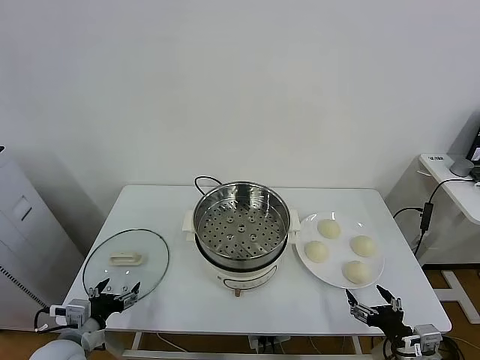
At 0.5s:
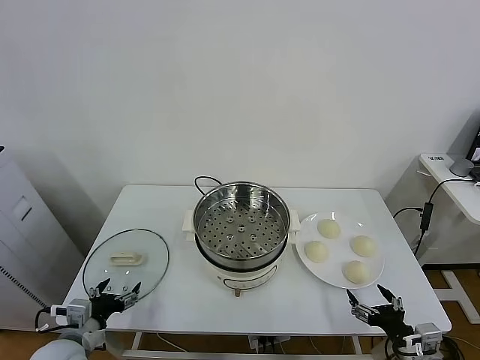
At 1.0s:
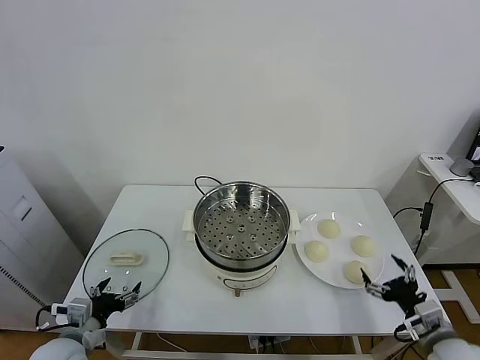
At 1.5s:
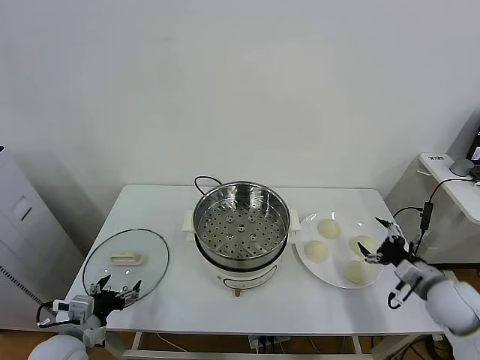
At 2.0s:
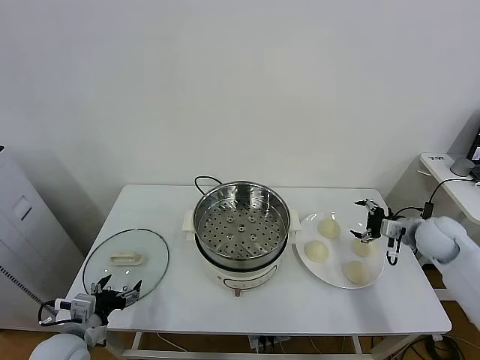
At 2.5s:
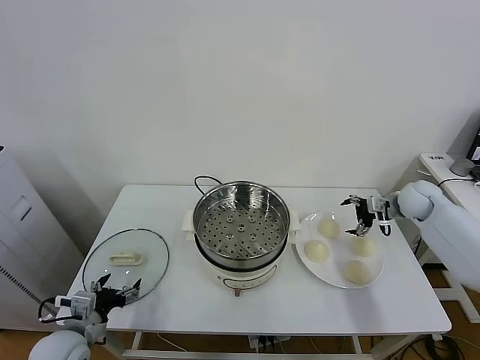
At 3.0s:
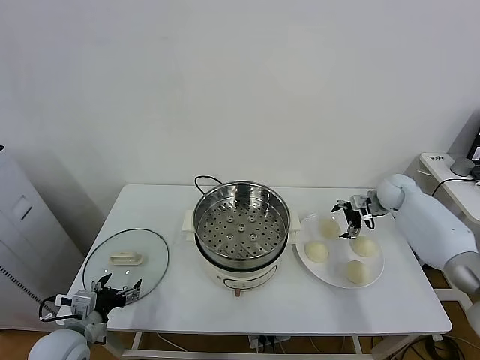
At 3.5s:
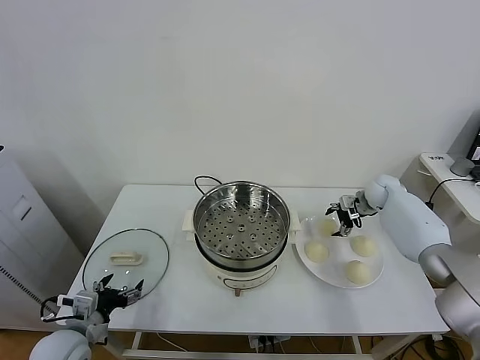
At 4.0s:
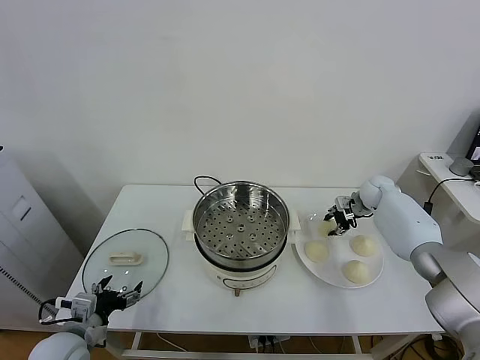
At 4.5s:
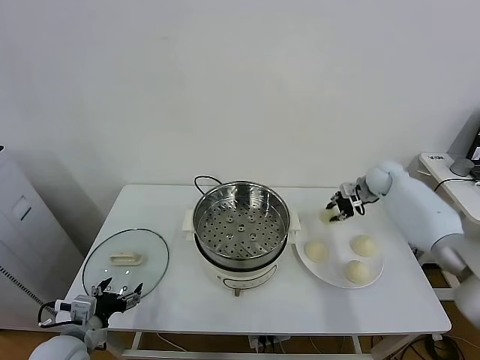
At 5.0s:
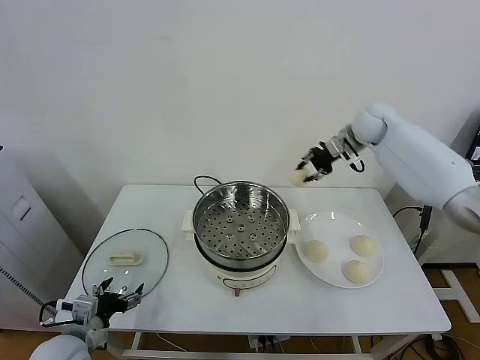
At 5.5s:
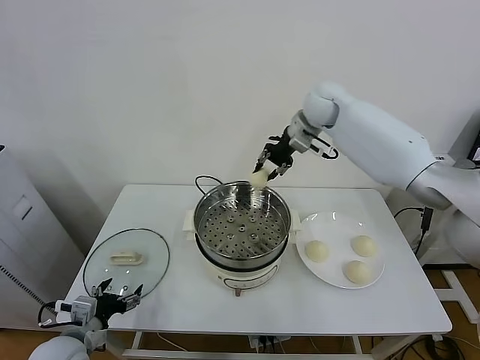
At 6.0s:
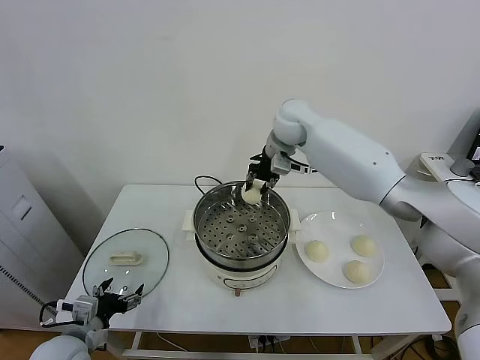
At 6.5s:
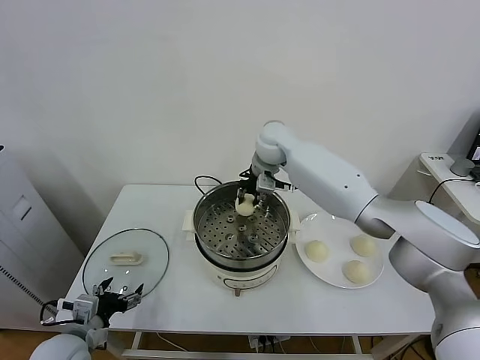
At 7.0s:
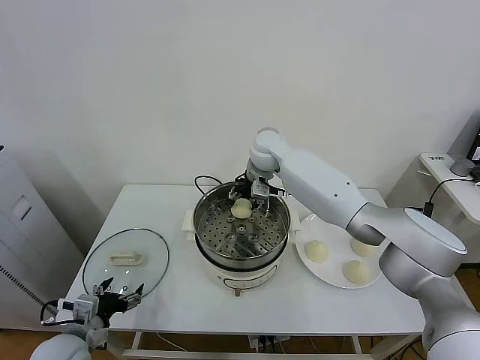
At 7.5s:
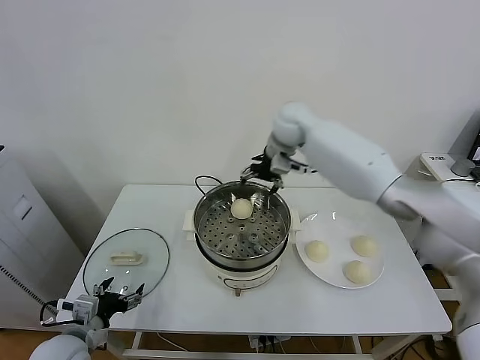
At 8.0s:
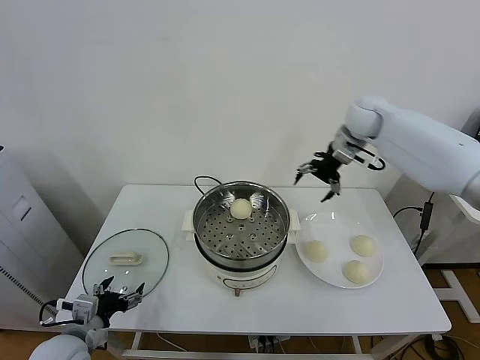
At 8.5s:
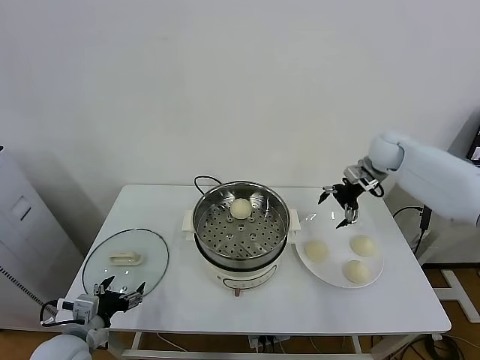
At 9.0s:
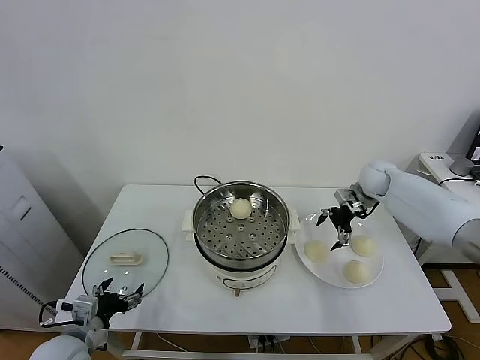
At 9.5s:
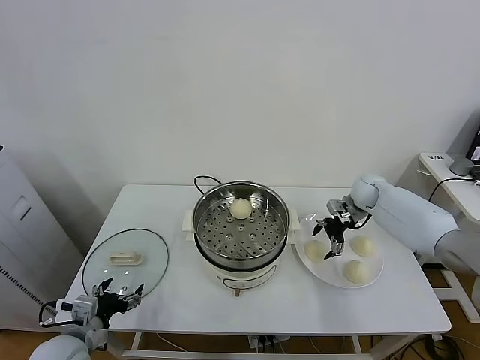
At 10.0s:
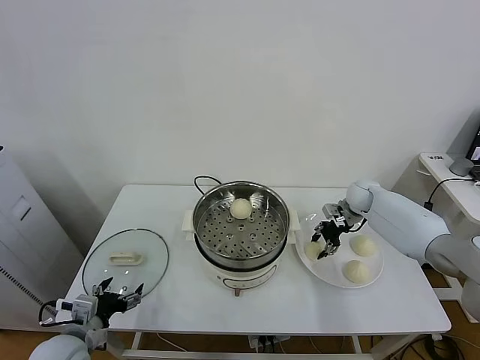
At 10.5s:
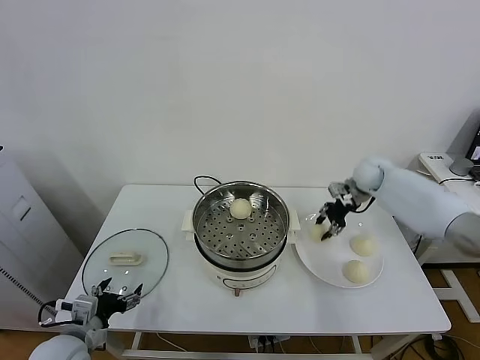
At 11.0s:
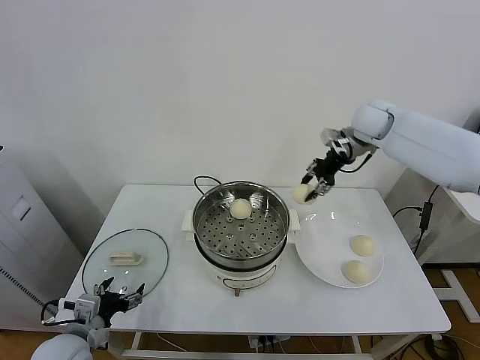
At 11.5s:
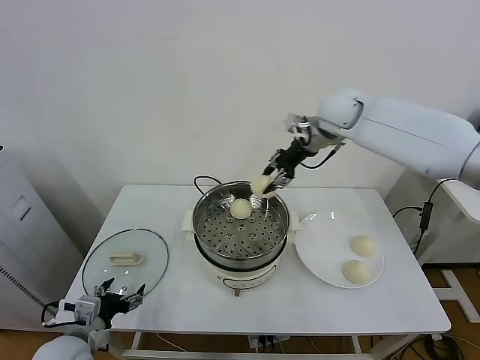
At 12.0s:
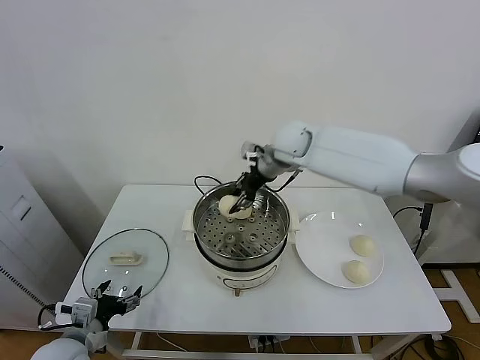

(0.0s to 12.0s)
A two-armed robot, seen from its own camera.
Task of the whole recording: take steamed baozi put them in steamer.
Step, 0.0s - 3.5s: Grasp the baozi in the plate with right gripper.
Step, 4.0s - 7.0s: Place the baozi on the steamer with right gripper.
Step, 7.5s - 10.0s: Grasp the baozi in the plate with right gripper.
2.0s - 4.0s: The right gripper goes about 15 cm forward, and closes its fingers.
4.0s - 6.0s: The right gripper goes approximately 35 cm to the left and upward.
6.0s - 8.0s: The right gripper moves to the right, about 20 cm, and opens.
8.0s - 10.0s: The right gripper moves downward, approximately 25 cm, and closes up.
10.0s - 12.0s: The right gripper moves to the left and upward, some 30 cm.

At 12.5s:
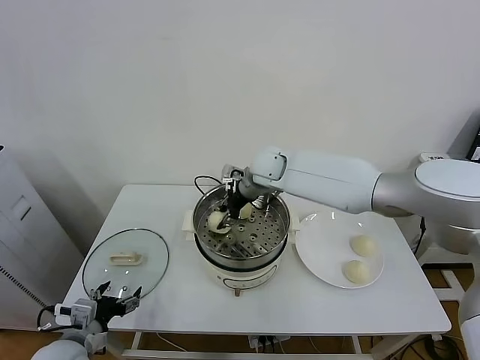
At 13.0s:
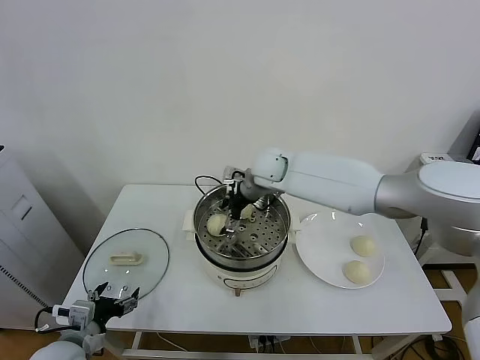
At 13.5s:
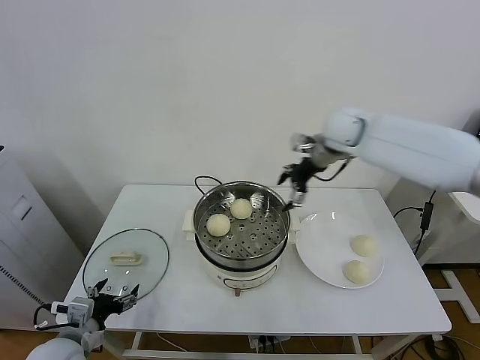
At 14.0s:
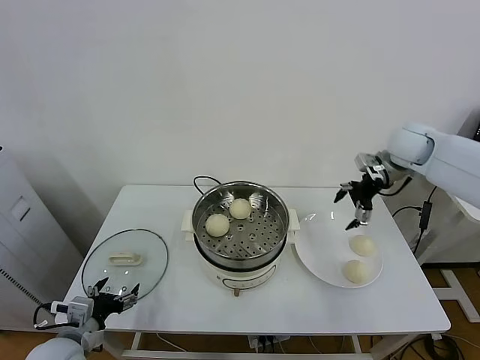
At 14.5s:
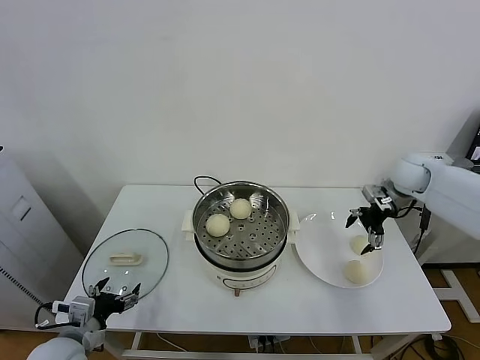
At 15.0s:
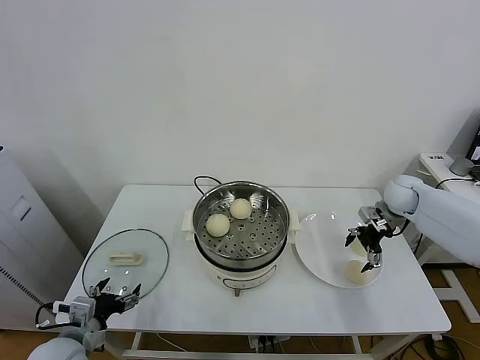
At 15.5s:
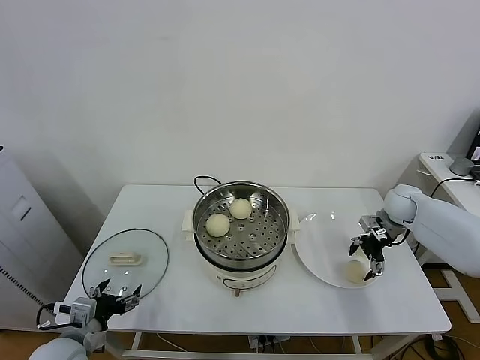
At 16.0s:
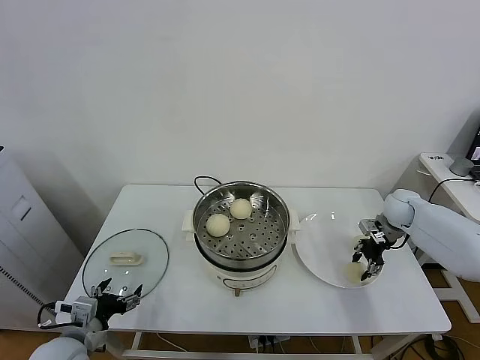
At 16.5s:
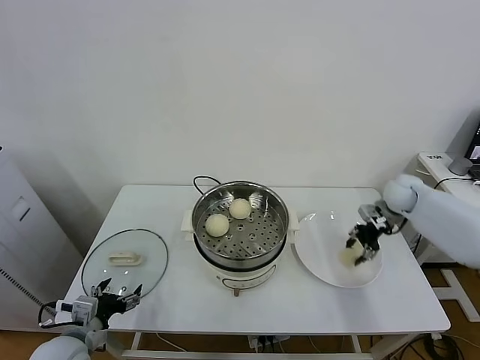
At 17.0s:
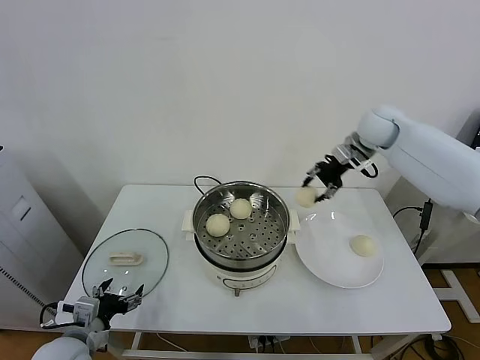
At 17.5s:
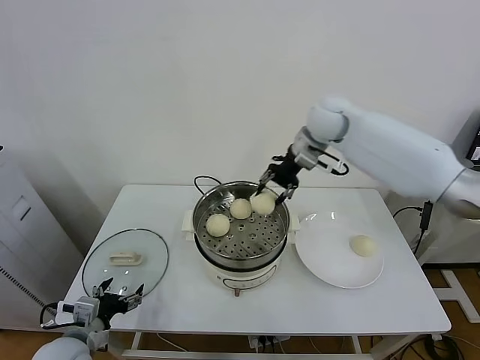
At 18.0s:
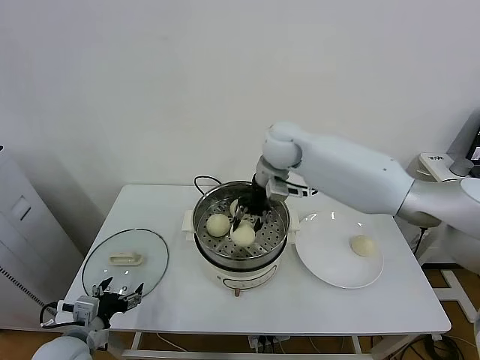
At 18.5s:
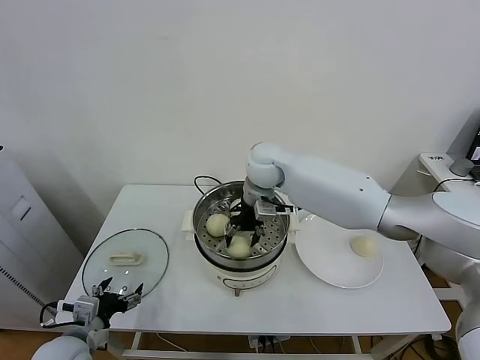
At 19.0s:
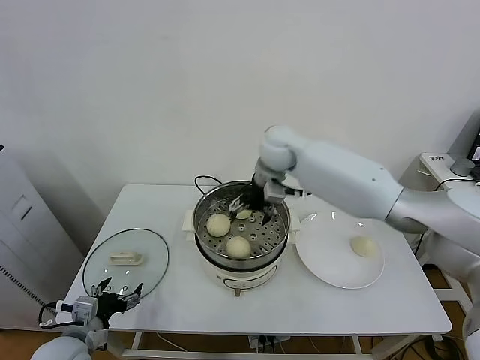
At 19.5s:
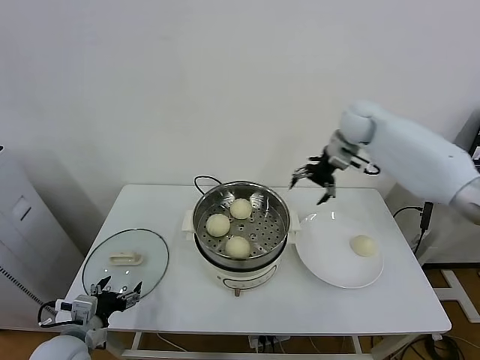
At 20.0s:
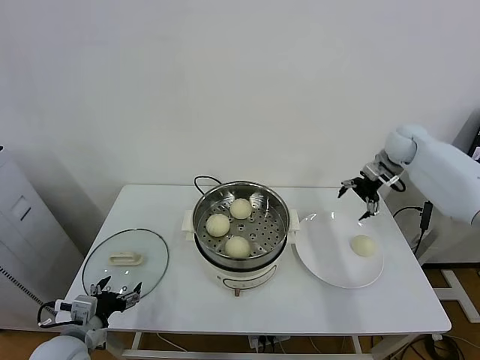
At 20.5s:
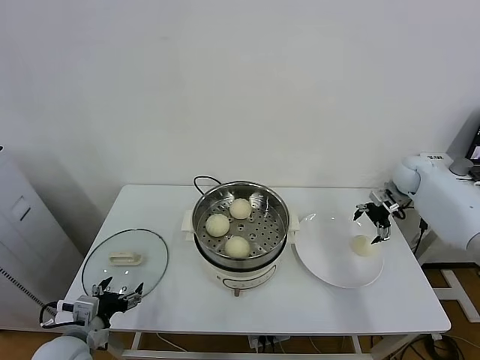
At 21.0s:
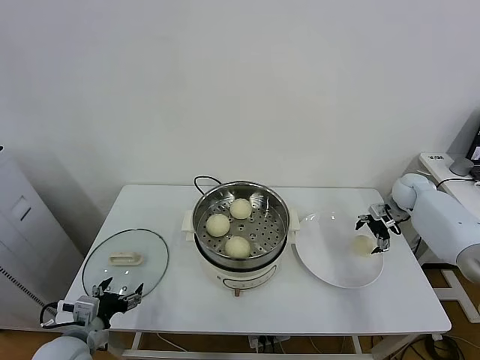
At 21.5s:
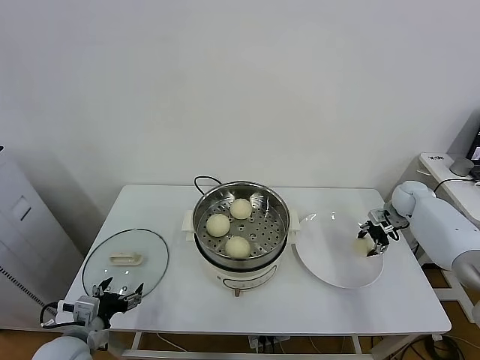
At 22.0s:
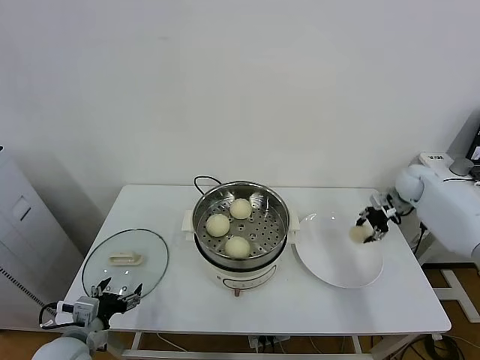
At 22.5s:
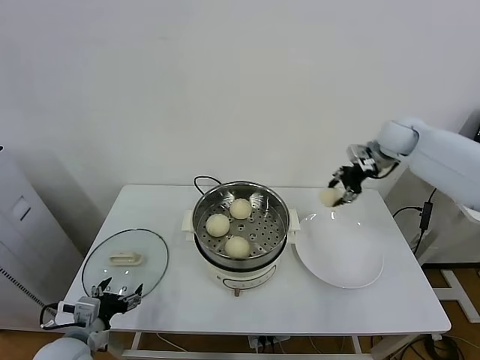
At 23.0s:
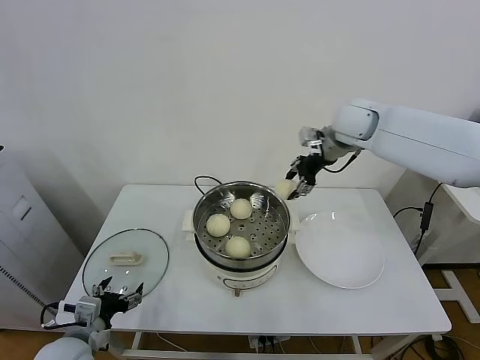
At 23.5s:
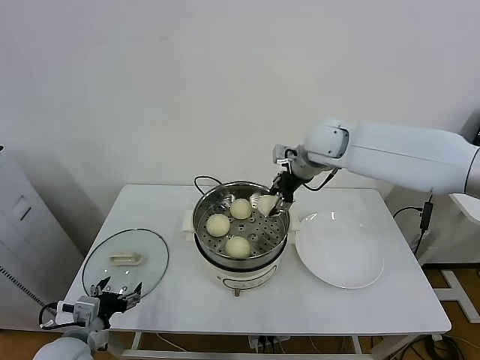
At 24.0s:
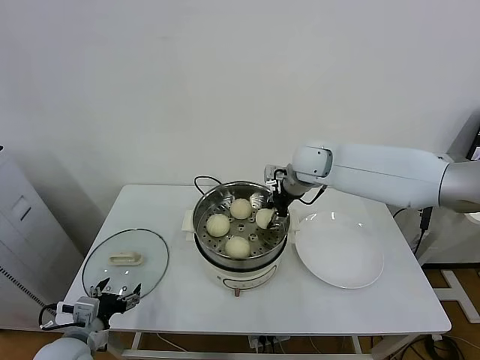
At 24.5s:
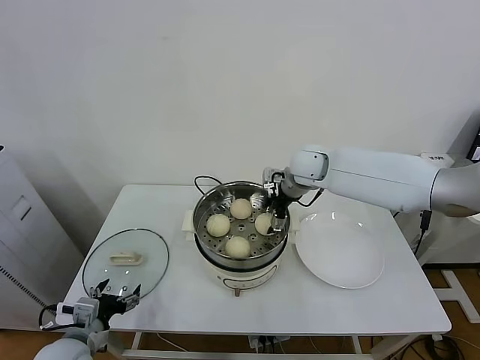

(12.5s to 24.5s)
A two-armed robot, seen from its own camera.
Task of the whole recording: take steamed baozi put them in steamer.
Step, 13.5s - 16.0s: Grasp the baozi in the plate with right gripper.
Step, 16.5s - 18.5s: Place the baozi on the steamer with right gripper.
Step, 19.0s - 21.5s: Grasp the baozi in the plate with right gripper.
Step, 22.0s - 24.5s: Place the baozi on the steamer with right gripper.
12.5s - 14.5s: The right gripper travels to the right by roughly 35 cm, and opens its fingers.
14.5s - 16.5s: The right gripper closes.
16.5s - 18.5s: The right gripper shifts some 35 cm to the left, and opens up.
18.5s - 20.5s: The right gripper shifts roughly 40 cm to the right, and opens its fingers.
20.5s - 22.5s: The right gripper moves upward and to the left, about 15 cm, and closes up.
22.5s - 24.5s: The right gripper moves to the left, about 20 cm, and opens up.

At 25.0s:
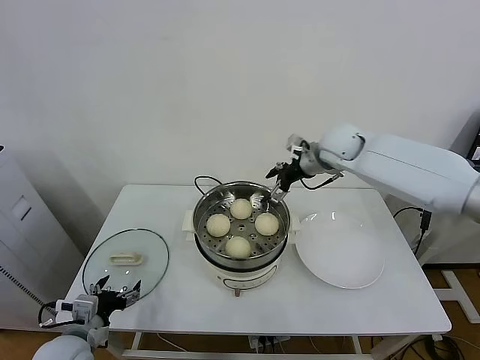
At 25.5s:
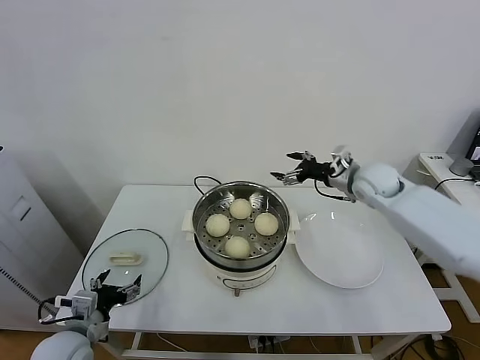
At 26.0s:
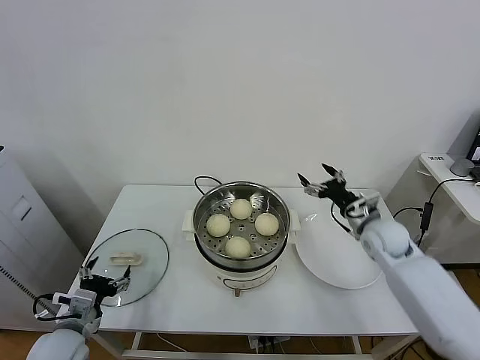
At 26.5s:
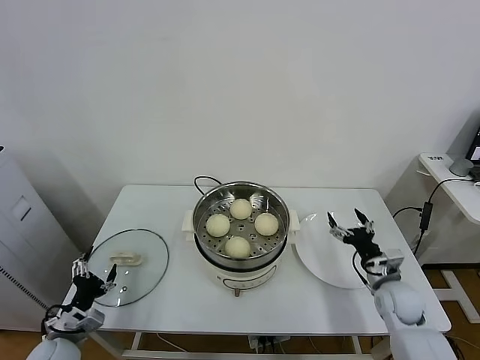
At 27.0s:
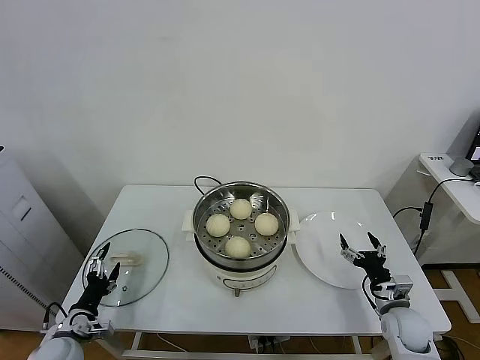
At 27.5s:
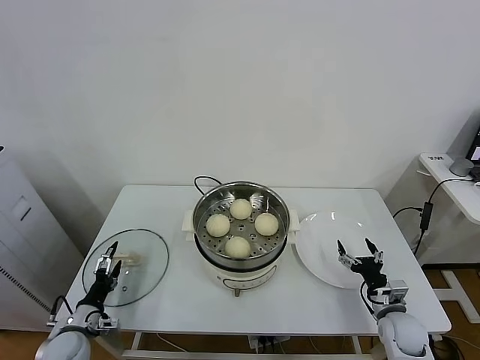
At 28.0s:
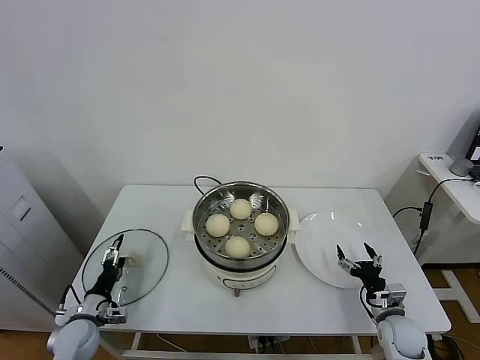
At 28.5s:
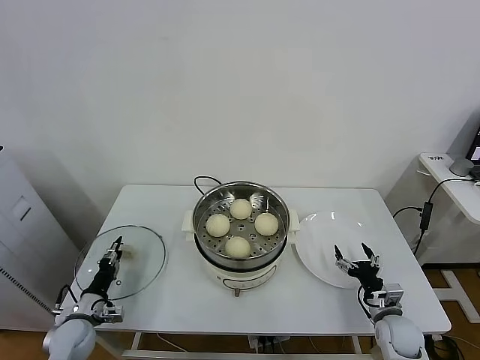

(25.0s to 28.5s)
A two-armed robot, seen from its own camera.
Task of the whole recording: take steamed baozi put them in steamer.
25.0s - 27.0s: The right gripper travels downward, backward and to the right by about 50 cm; the left gripper heads downward and to the left, covering approximately 10 cm.
27.0s - 28.5s: The left gripper shifts about 5 cm forward, and closes.
